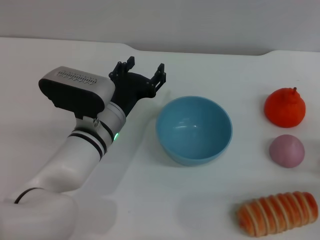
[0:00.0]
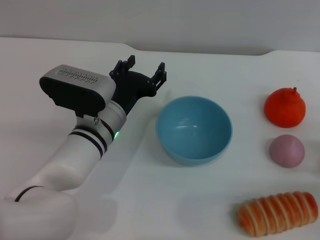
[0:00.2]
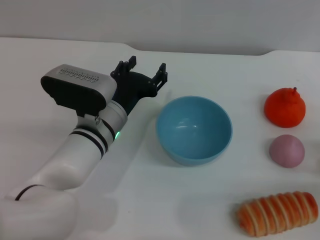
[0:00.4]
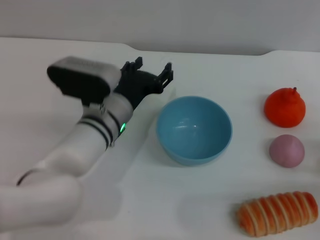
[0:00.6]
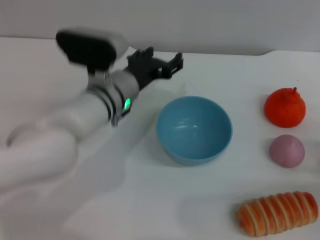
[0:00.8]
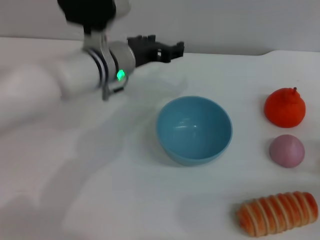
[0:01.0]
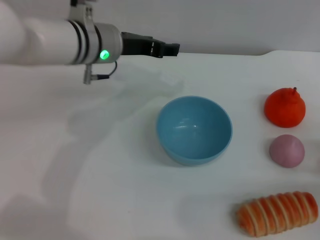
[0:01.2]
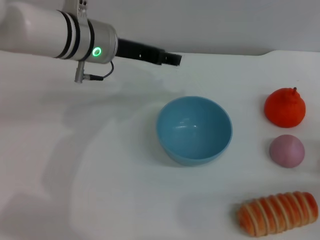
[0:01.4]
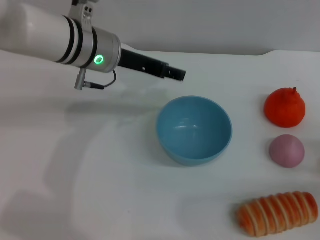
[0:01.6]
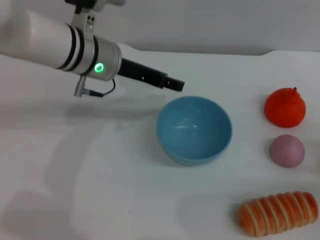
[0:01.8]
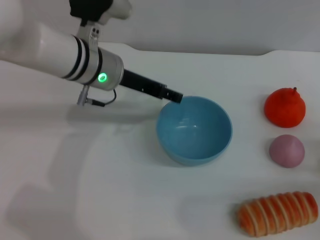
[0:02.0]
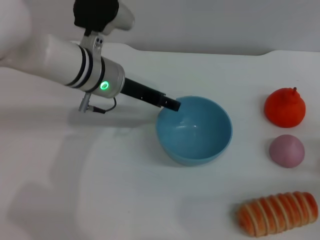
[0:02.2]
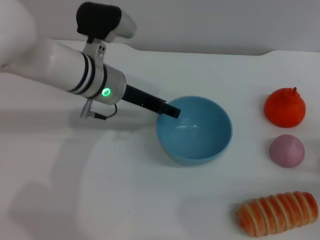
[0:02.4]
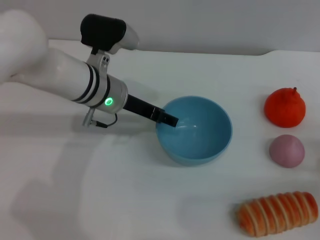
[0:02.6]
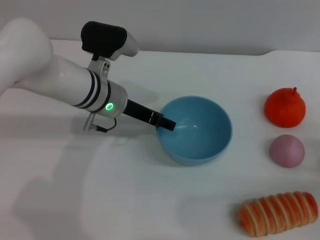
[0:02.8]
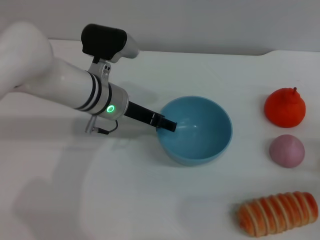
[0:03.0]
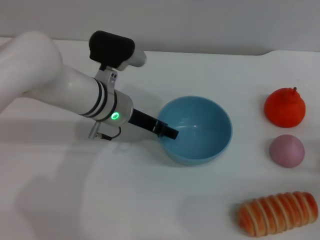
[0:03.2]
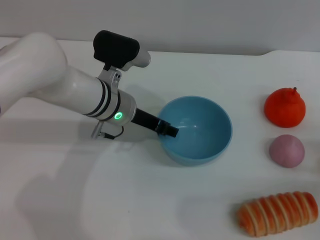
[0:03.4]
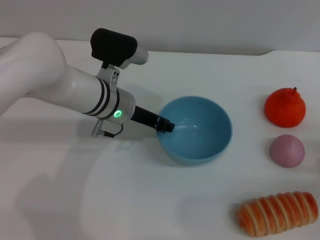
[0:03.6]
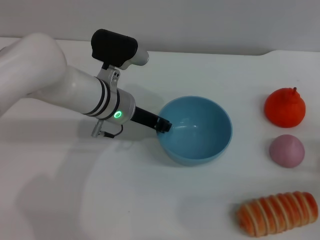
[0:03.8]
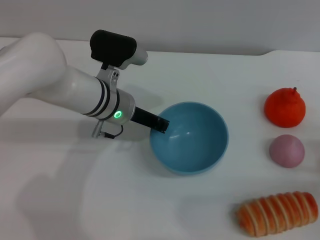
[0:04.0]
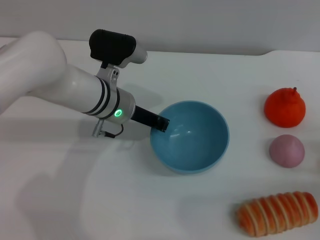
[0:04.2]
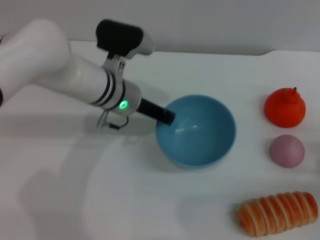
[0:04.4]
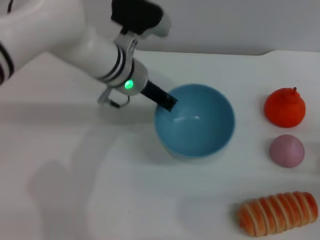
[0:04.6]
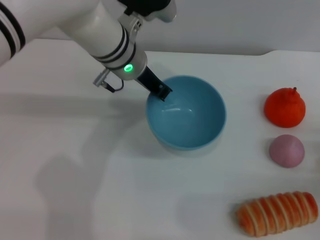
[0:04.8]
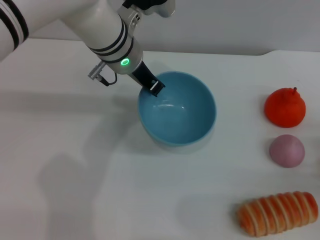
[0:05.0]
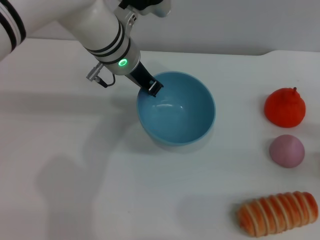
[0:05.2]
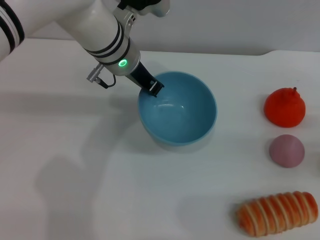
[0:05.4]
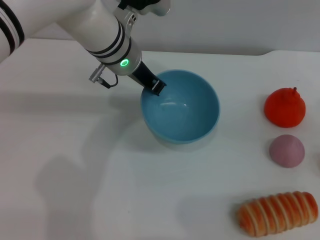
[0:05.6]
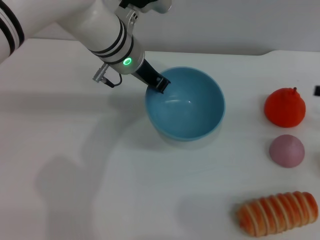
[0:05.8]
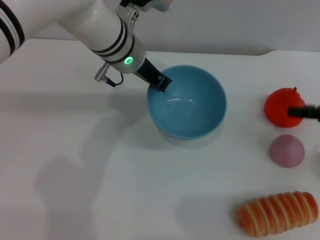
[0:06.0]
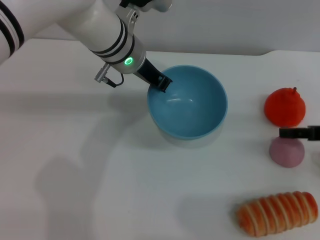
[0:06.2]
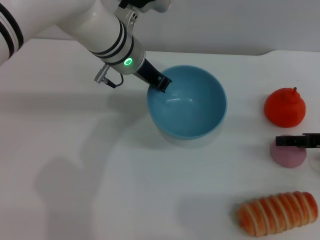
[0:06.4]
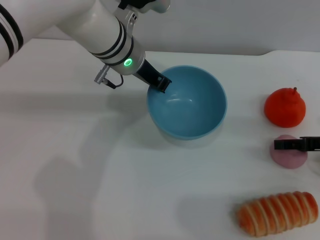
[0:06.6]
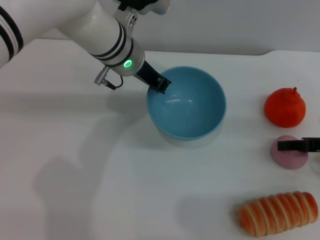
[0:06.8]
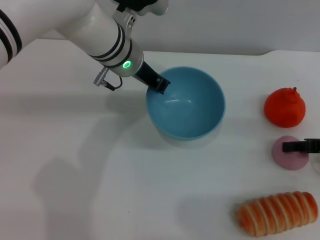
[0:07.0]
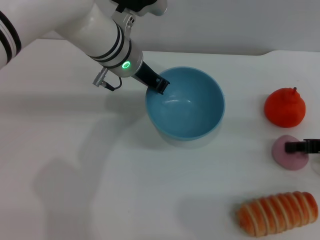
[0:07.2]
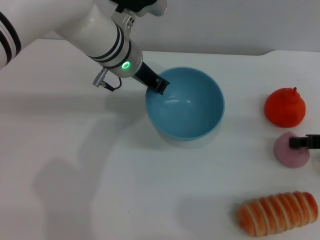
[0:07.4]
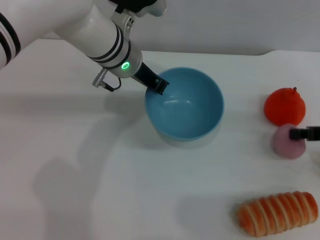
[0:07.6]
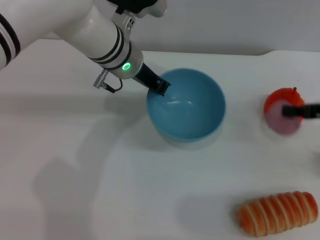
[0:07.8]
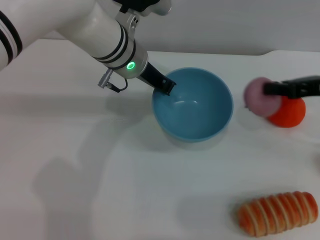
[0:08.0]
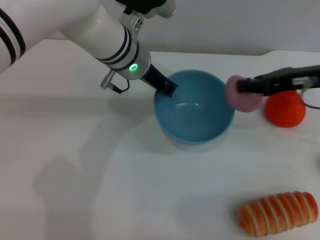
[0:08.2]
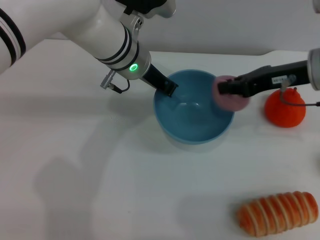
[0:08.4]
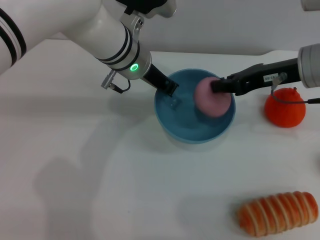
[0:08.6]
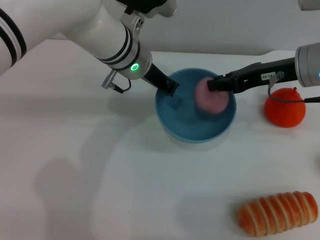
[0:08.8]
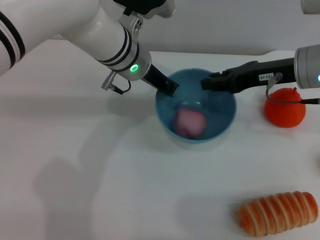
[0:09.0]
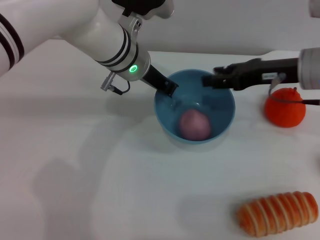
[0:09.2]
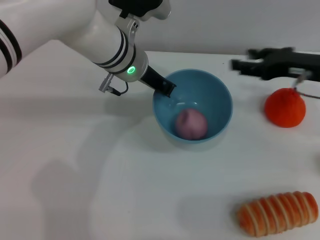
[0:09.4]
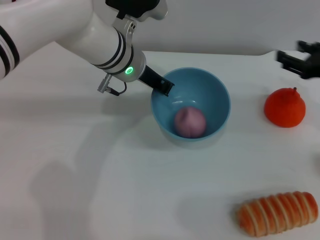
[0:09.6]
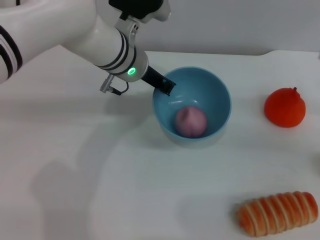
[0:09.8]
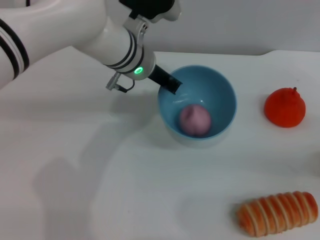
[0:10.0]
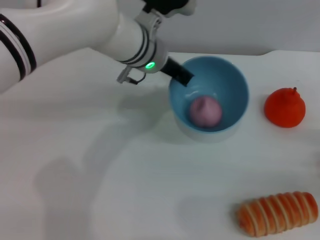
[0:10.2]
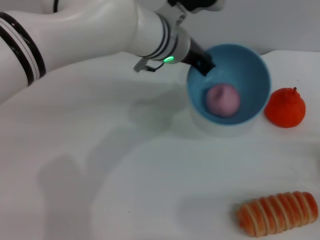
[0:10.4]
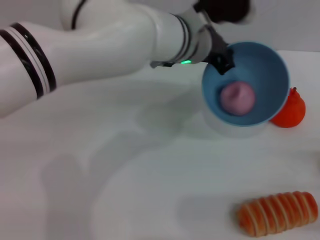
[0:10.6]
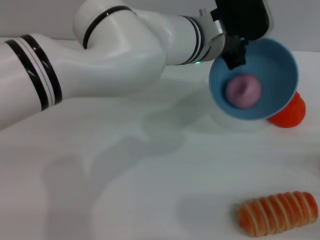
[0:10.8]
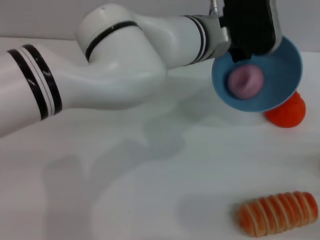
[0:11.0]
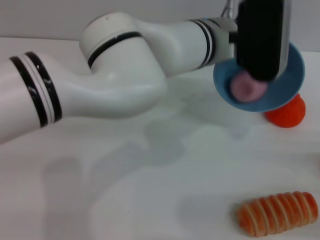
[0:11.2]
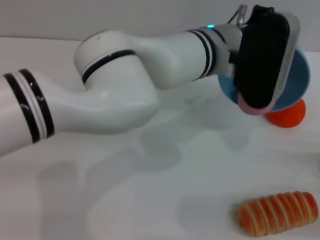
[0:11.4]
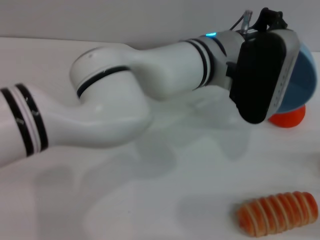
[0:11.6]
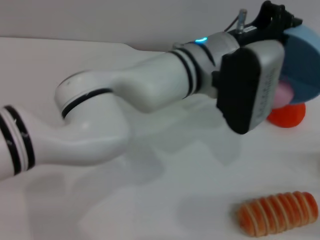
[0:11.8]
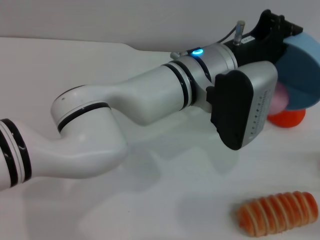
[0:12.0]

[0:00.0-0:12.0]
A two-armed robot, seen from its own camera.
Task of the whole recording: put the peach into the blue bowl and pour it out repeatedly.
Step, 0:00.0 to 0:05.8: Pick up the bowl with the left gripper.
Step, 0:06.0 to 0:07.8: Pick up the peach with the right gripper.
Step, 0:08.2 to 0:09.4: Place the peach into the bowl.
0:00.0 to 0:01.6: The left gripper heads upward and forward, covering roughly 15 cm.
0:01.6 to 0:03.0: The left gripper moves downward, roughly 10 cm.
0:03.0 to 0:04.4: The left gripper closes up.
0:04.4 to 0:06.0: The right gripper shifts about 15 cm upward and forward. Meanwhile the left gripper goes about 5 cm upward.
0:06.0 to 0:07.6: The right gripper closes.
0:07.6 to 0:09.0: The right gripper goes roughly 15 cm to the left and upward.
0:09.0 to 0:10.4: The left gripper travels to the right by about 5 cm; the right gripper heads to the right, backward and downward, covering approximately 30 cm, and opens.
0:10.4 to 0:12.0: The left gripper goes approximately 5 cm backward.

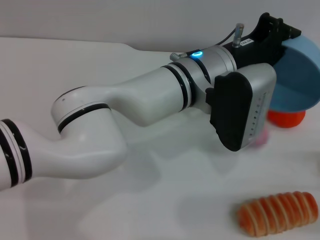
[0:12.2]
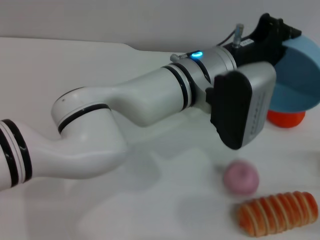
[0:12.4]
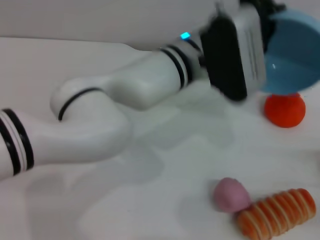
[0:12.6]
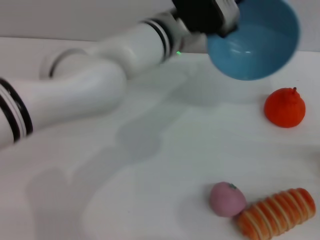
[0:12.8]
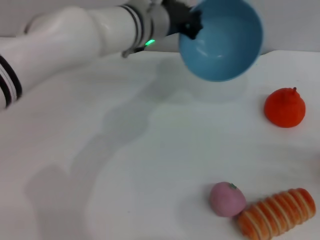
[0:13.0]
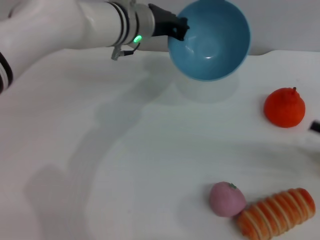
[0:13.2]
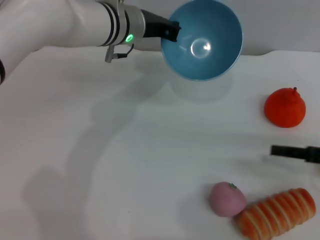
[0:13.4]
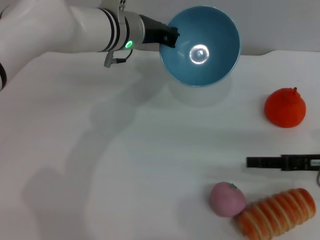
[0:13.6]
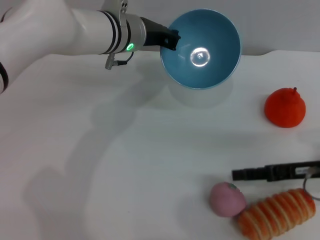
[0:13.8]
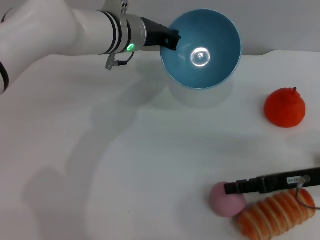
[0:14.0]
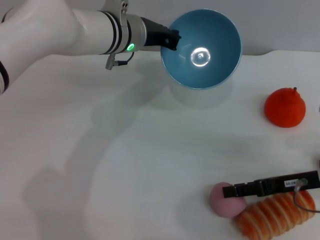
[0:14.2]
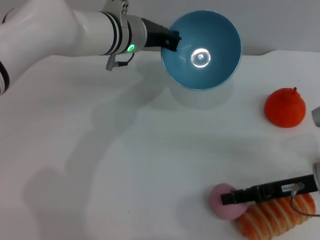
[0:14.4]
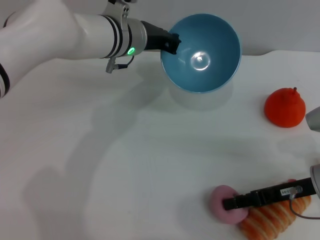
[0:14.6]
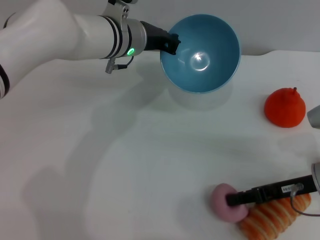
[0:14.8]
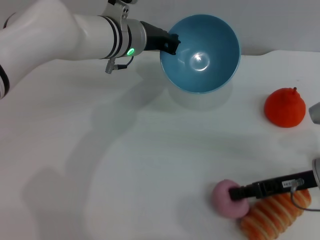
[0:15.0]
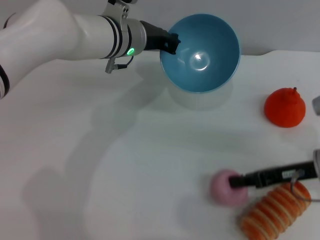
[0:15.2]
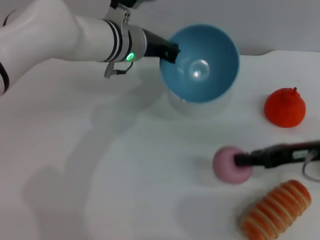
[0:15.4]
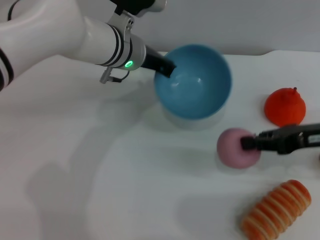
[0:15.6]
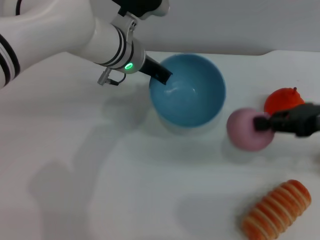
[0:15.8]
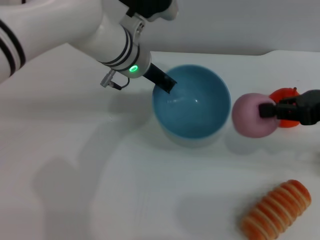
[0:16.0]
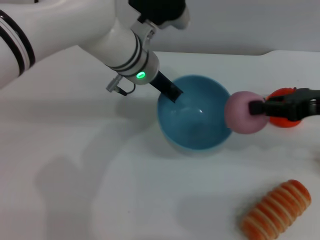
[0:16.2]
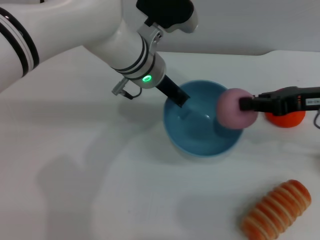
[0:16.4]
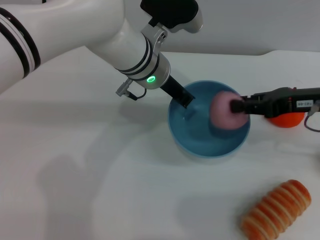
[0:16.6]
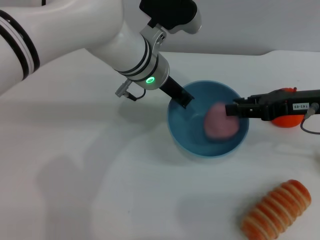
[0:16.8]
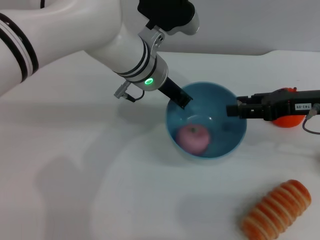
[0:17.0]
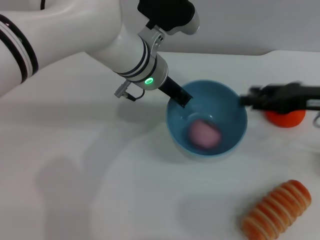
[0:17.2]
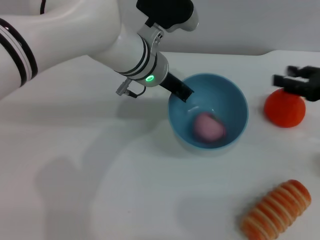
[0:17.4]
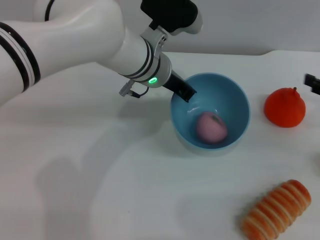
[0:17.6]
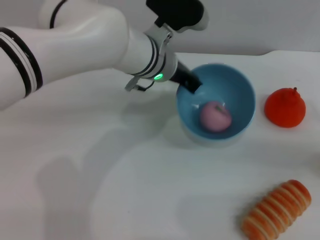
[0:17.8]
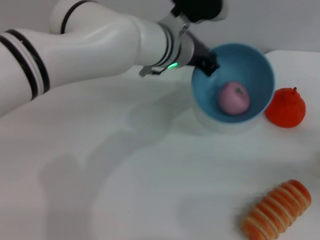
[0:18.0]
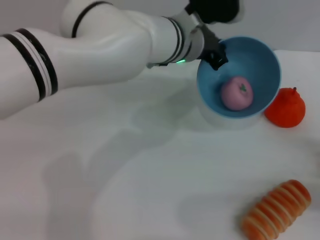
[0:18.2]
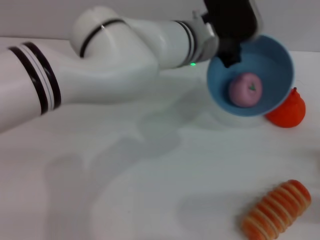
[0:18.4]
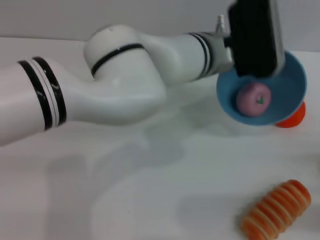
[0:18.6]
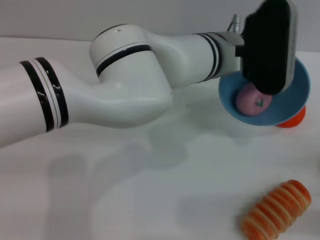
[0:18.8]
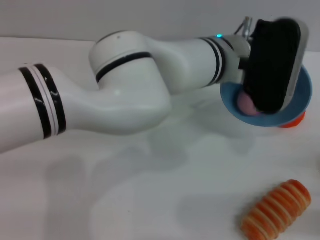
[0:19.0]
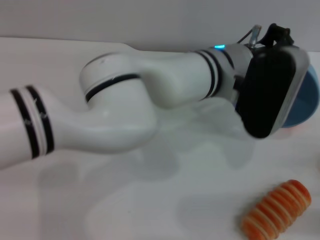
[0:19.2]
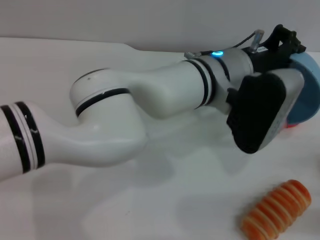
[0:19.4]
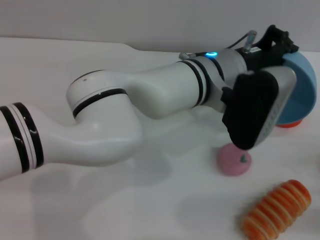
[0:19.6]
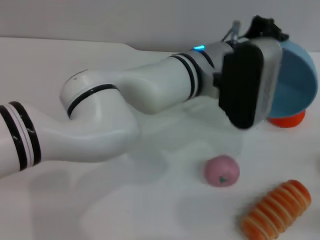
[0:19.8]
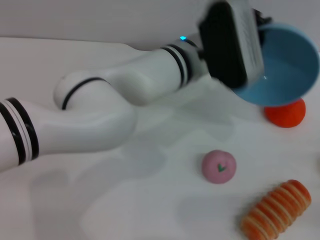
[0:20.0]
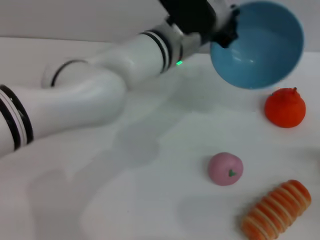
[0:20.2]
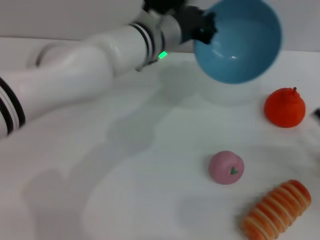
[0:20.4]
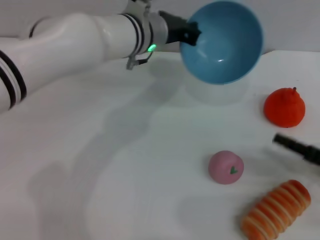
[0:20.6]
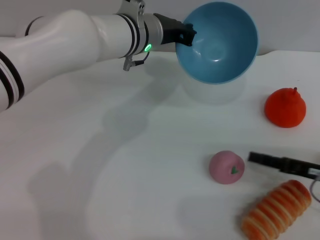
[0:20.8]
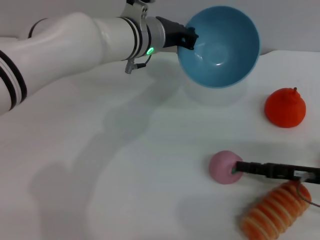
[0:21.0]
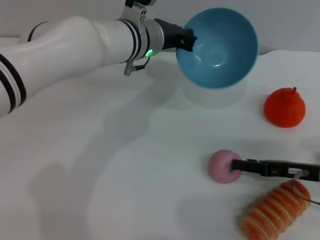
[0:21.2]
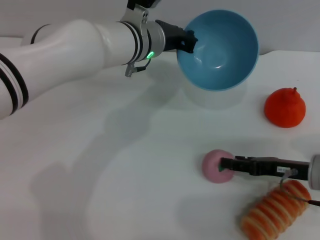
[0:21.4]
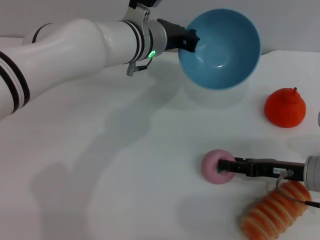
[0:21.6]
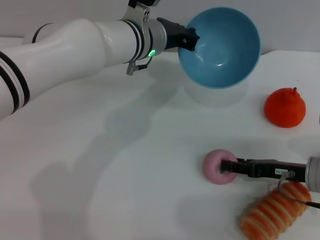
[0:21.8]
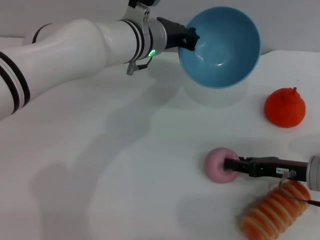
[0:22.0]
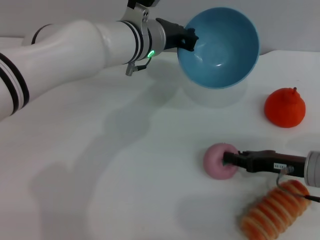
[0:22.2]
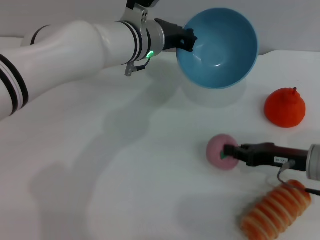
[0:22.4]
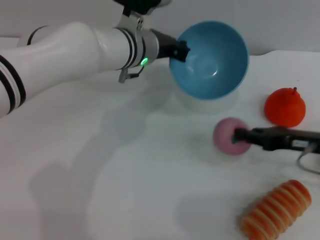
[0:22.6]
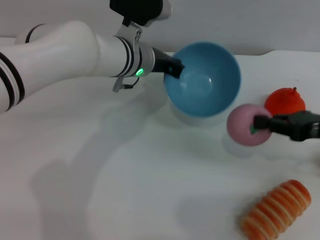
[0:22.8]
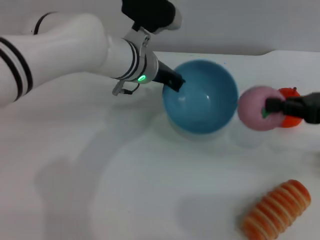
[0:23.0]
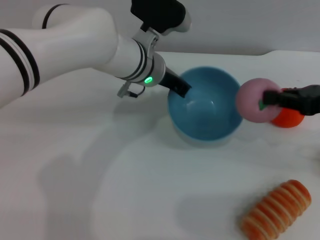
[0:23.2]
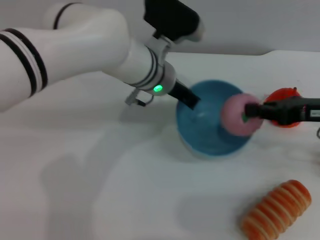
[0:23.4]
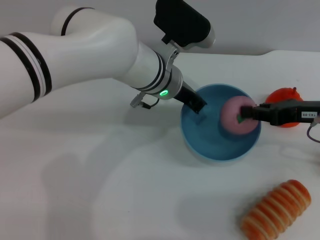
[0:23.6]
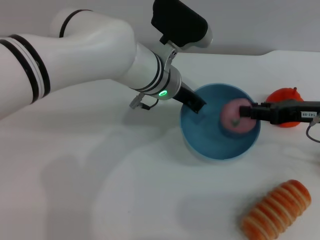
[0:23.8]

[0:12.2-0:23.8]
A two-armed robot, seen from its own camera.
Task of the whole recording: put the peach into the blue bowl and pour it out repeatedly.
Step, 0:12.6 to 0:15.4: Pick up the peach with the right gripper.
Step, 0:15.6 to 0:17.2: Place the peach into the bowl.
Step, 0:17.4 to 0:20.2: Pour the peach out of bowl.
Step, 0:20.4 to 0:22.4: Pick up the peach with the right gripper.
0:12.2 to 0:13.6: The right gripper moves forward and to the left, roughly 10 cm. Meanwhile the left gripper heads to the left and forward, covering about 15 cm.
0:13.6 to 0:15.0: The right gripper closes.
0:15.0 to 0:16.6: The left gripper ends up about 5 cm from where it was. Meanwhile the right gripper shifts approximately 10 cm upward and forward.
0:16.6 to 0:18.0: The right gripper goes roughly 15 cm to the right, downward and backward, and opens up.
0:18.0 to 0:19.4: The right gripper goes roughly 10 cm backward. Meanwhile the left gripper heads backward and to the right, covering roughly 10 cm.
0:19.4 to 0:21.0: The left gripper goes some 15 cm to the left and forward. The right gripper shifts some 15 cm forward and to the left.
0:21.0 to 0:22.4: The right gripper closes its fingers.
0:22.4 to 0:23.8: The right gripper travels upward by roughly 10 cm.
